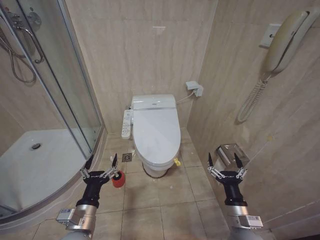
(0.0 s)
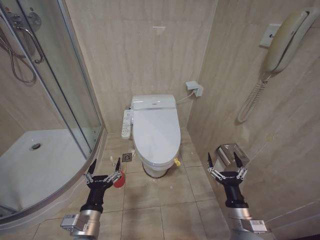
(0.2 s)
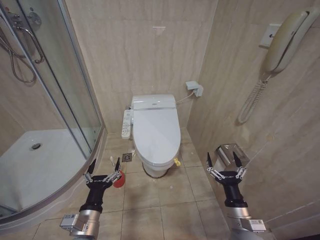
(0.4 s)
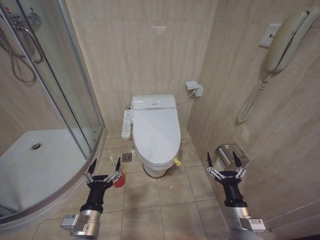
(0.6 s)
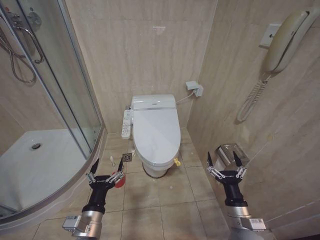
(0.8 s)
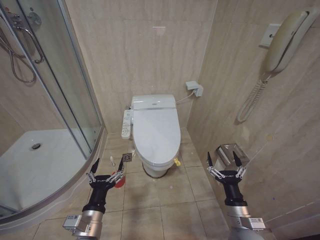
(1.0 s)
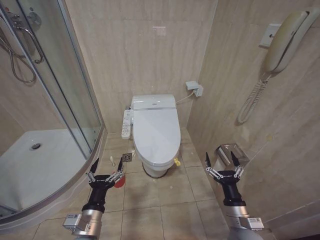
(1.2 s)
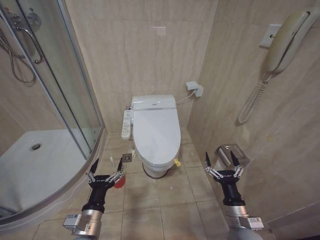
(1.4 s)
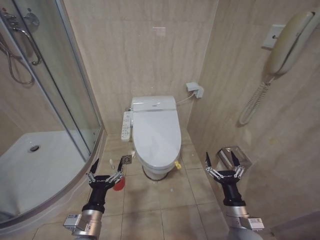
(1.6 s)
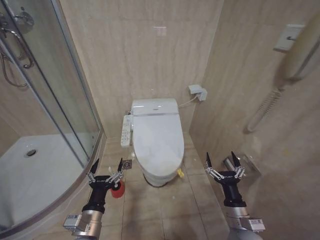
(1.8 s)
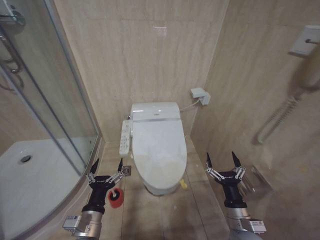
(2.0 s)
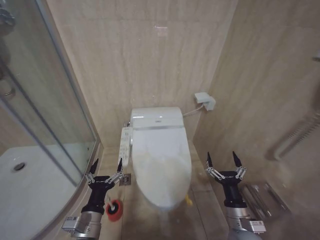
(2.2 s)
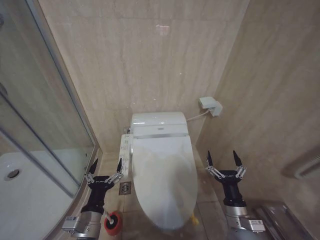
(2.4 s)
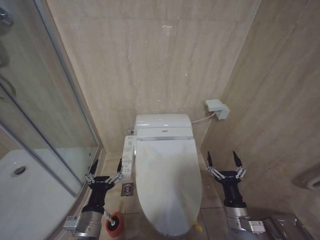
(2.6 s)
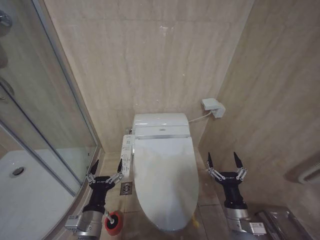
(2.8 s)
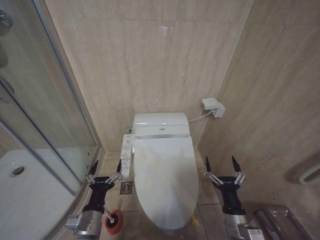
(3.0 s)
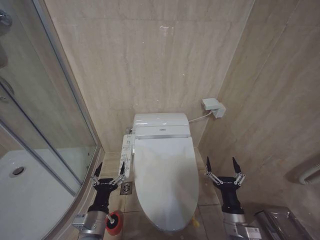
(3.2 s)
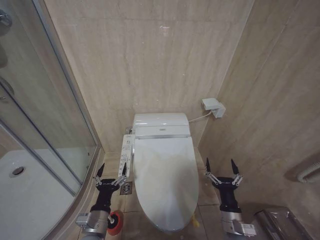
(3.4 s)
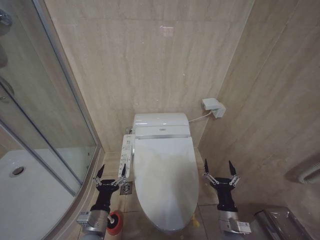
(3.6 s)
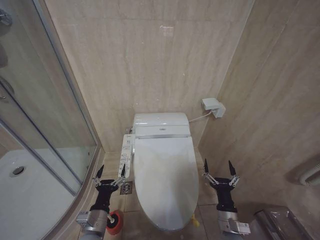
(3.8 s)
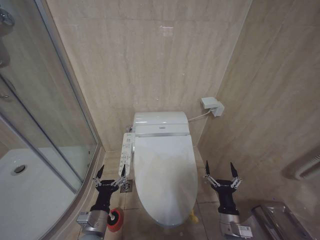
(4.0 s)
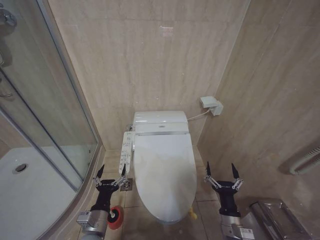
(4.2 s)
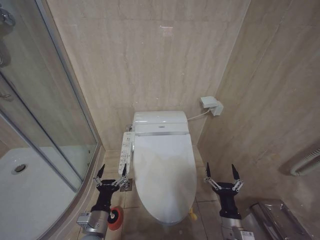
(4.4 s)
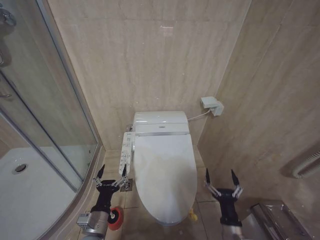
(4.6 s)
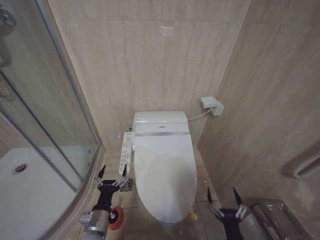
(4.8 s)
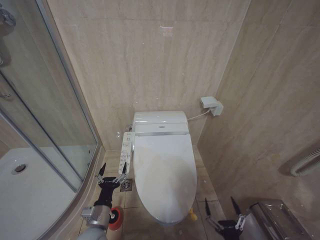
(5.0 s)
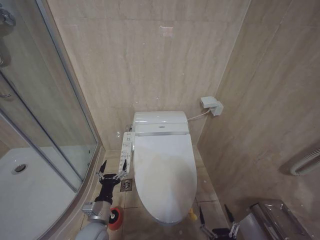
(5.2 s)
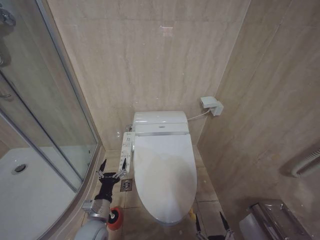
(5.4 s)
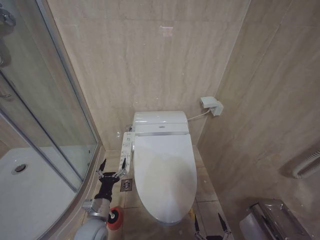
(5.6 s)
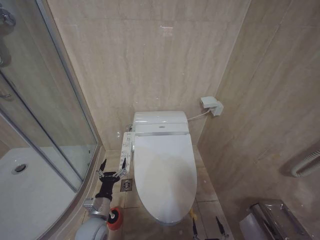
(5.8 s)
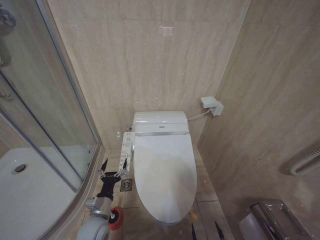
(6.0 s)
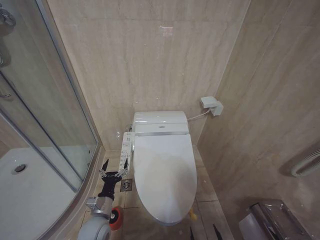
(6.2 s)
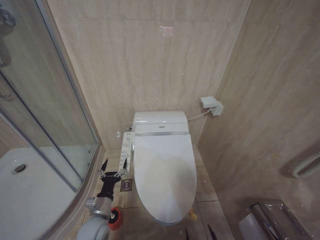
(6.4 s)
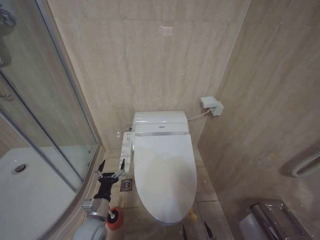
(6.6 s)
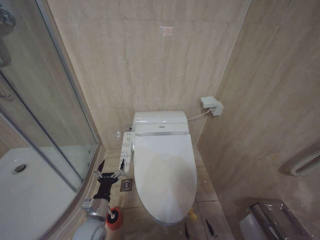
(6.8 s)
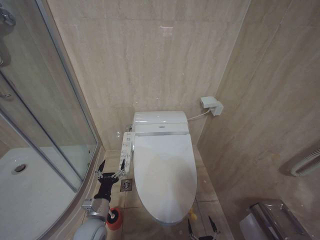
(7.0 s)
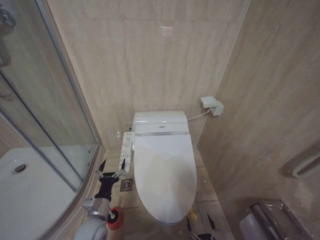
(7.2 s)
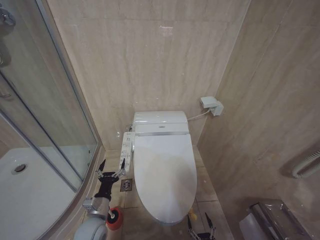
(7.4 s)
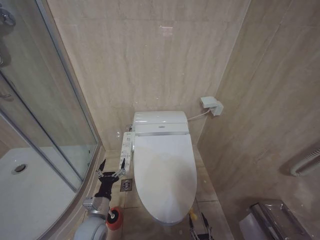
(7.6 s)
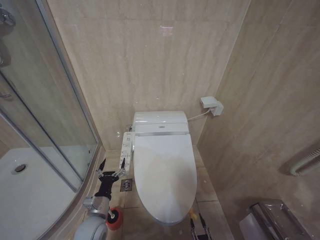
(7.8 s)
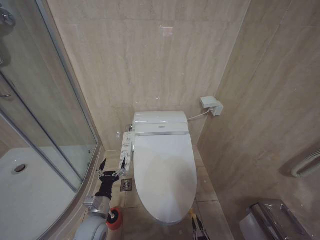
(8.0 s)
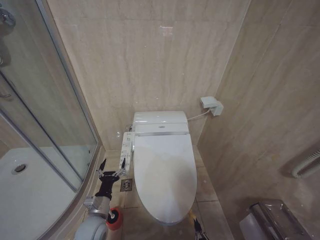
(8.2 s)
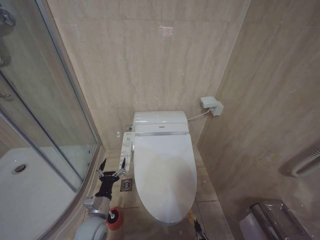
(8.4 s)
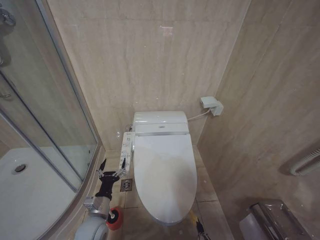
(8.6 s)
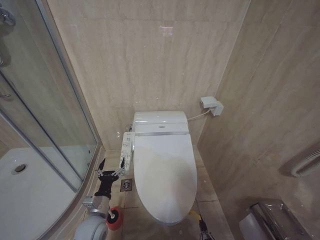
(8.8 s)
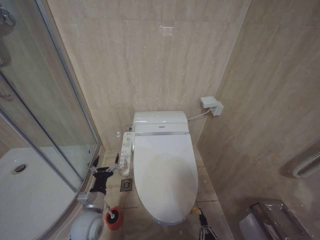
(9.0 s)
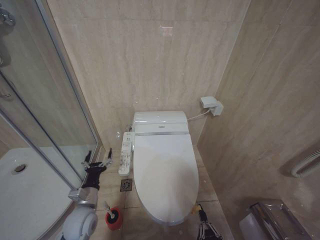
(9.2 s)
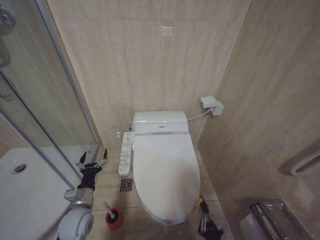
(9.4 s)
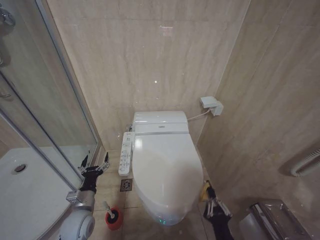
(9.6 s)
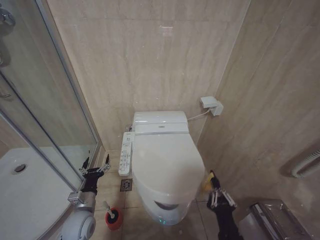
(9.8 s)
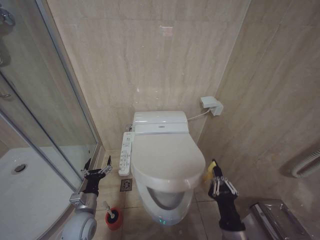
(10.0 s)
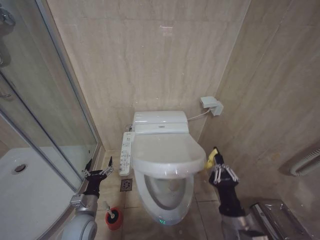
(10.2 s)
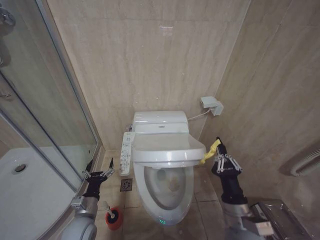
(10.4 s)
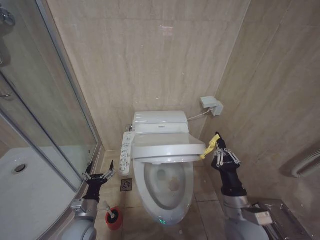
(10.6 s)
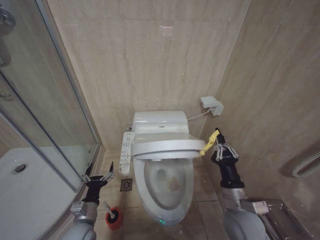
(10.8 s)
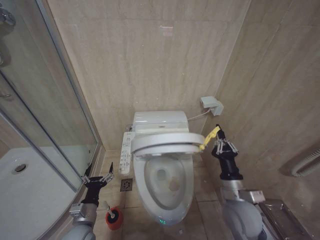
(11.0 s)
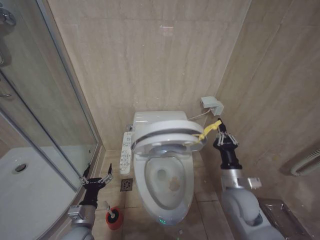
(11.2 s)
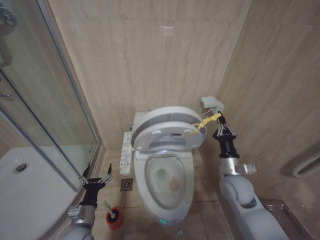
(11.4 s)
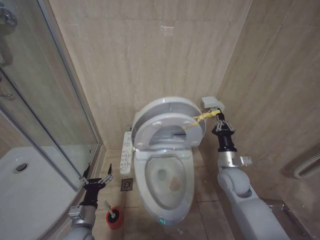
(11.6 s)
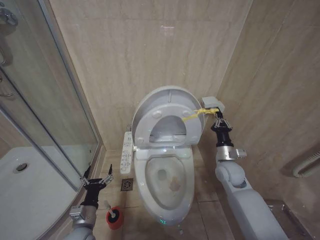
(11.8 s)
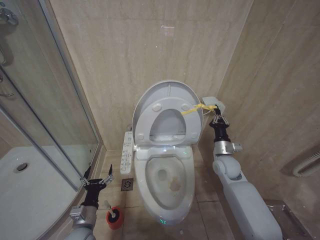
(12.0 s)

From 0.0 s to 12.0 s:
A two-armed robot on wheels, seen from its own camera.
Task of the whole recording: Open the toilet lid, clean the toilet bowl with a toilet brush, close the toilet lid, and flush.
From 3.0 s to 4.4 s: The grippers move only a little.
From 4.4 s to 6.0 s: The left gripper goes roughly 5 cm forward, while the right gripper is displaced backward and downward by some 20 cm.
From 6.0 s to 7.6 s: The right gripper moves approximately 5 cm.
From 7.6 s to 9.0 s: The right gripper heads upward, covering about 5 cm, and closes.
From 9.0 s to 10.4 s: The right gripper heads upward and forward, covering about 25 cm.
From 10.4 s to 12.0 s: The right gripper goes approximately 25 cm forward.

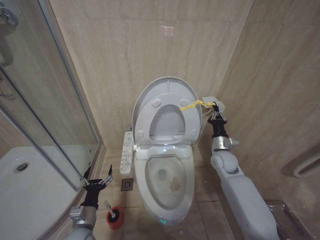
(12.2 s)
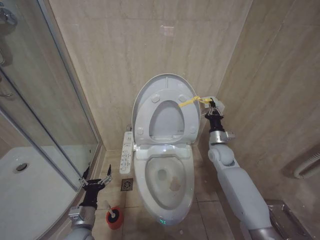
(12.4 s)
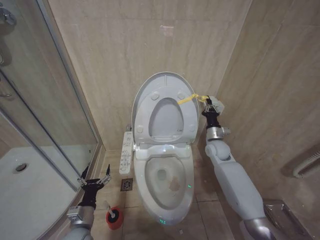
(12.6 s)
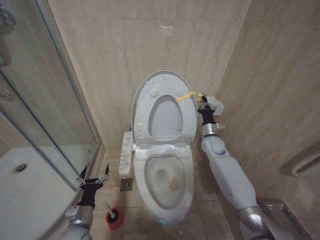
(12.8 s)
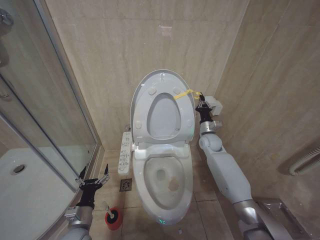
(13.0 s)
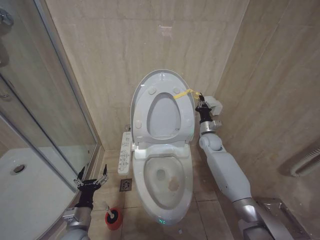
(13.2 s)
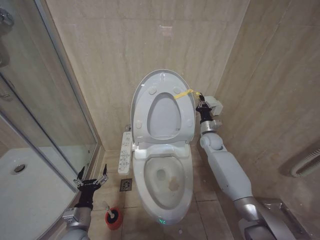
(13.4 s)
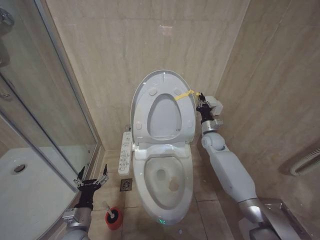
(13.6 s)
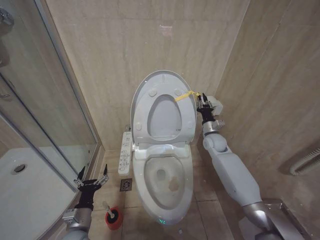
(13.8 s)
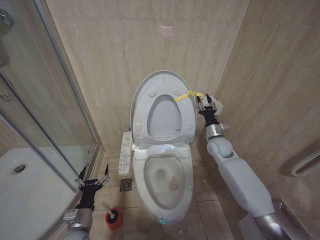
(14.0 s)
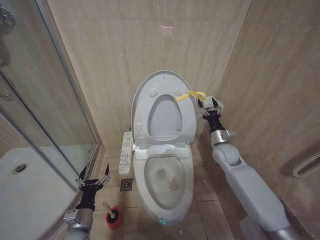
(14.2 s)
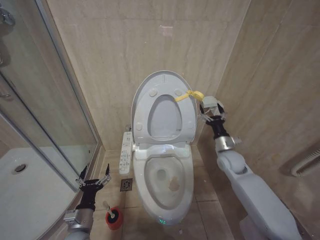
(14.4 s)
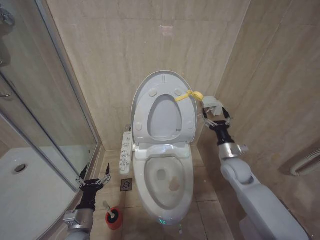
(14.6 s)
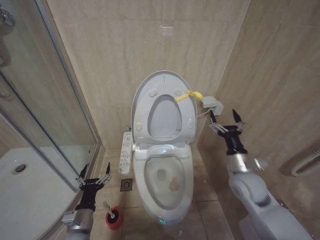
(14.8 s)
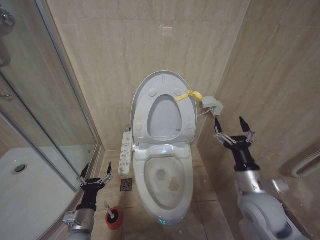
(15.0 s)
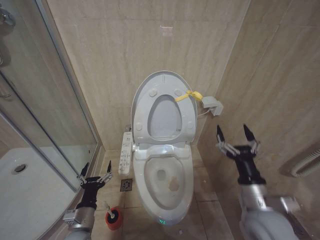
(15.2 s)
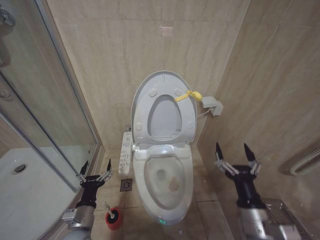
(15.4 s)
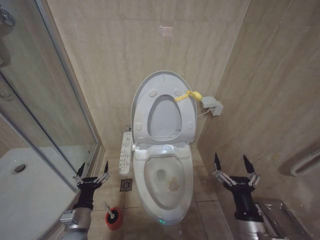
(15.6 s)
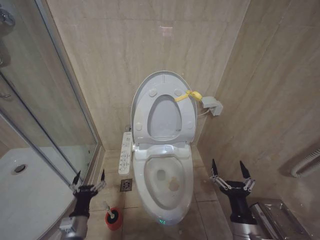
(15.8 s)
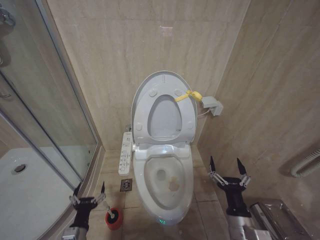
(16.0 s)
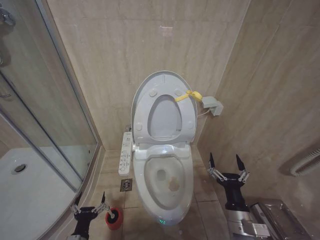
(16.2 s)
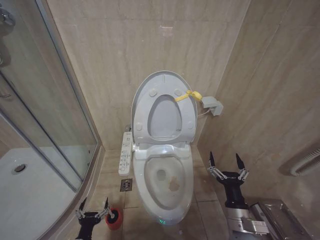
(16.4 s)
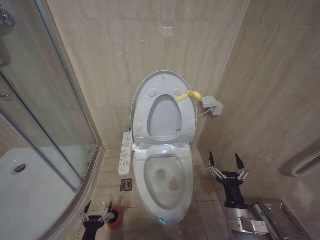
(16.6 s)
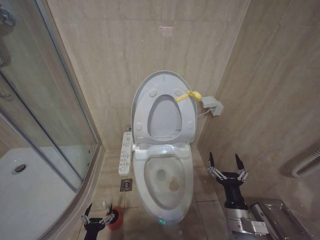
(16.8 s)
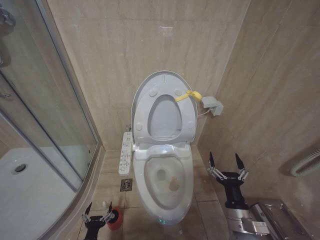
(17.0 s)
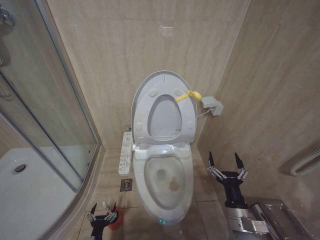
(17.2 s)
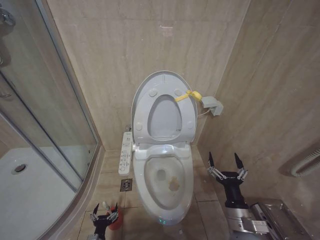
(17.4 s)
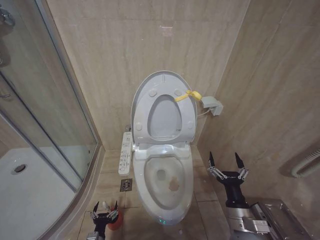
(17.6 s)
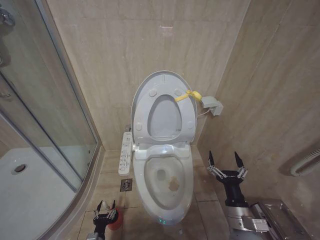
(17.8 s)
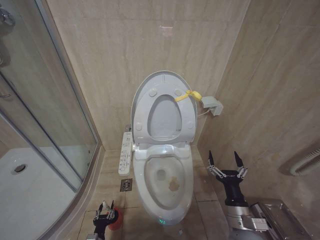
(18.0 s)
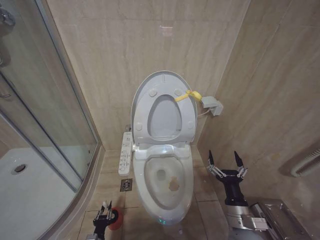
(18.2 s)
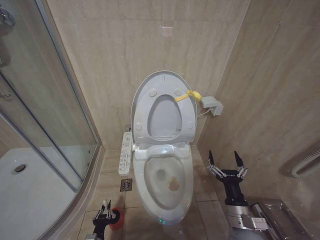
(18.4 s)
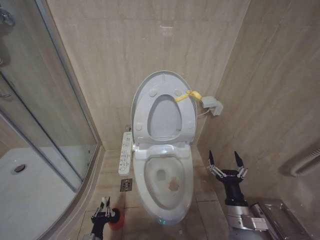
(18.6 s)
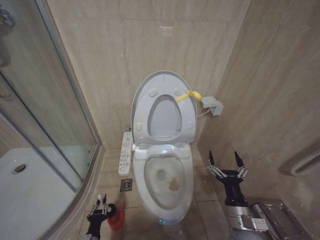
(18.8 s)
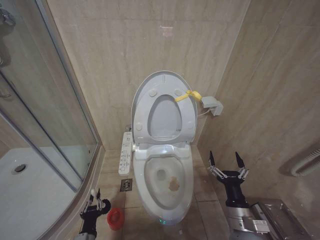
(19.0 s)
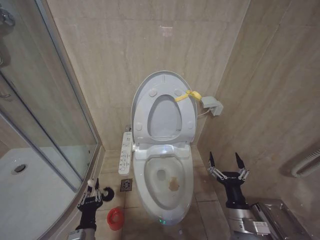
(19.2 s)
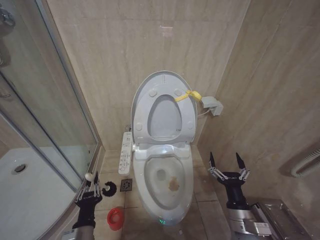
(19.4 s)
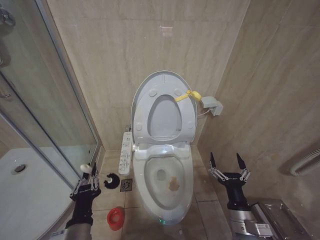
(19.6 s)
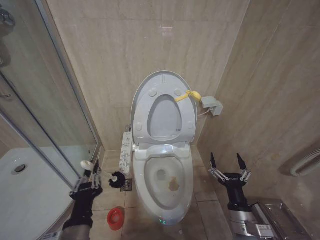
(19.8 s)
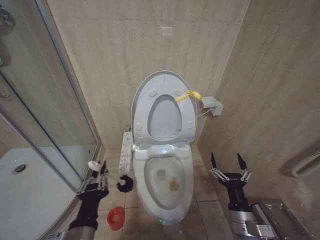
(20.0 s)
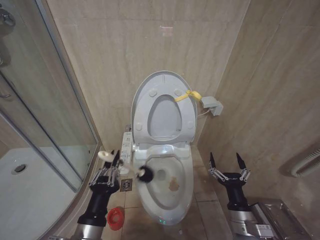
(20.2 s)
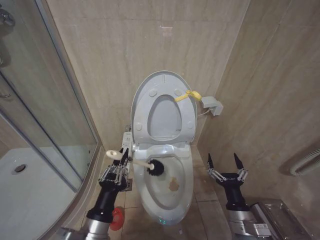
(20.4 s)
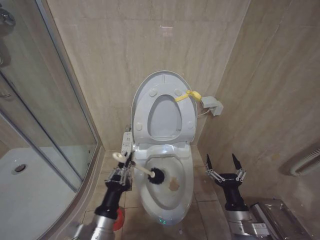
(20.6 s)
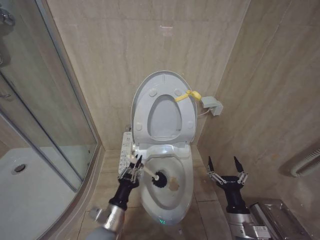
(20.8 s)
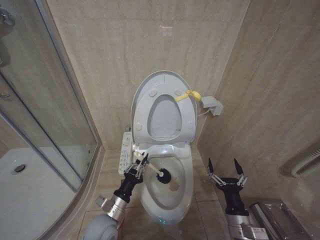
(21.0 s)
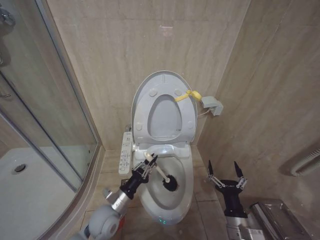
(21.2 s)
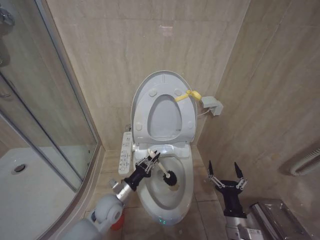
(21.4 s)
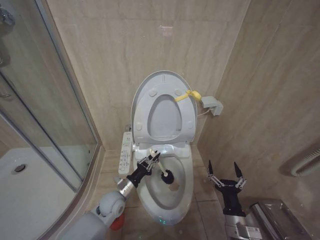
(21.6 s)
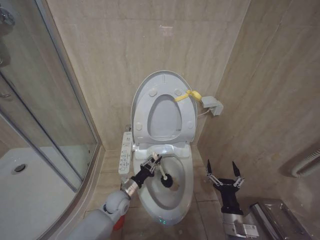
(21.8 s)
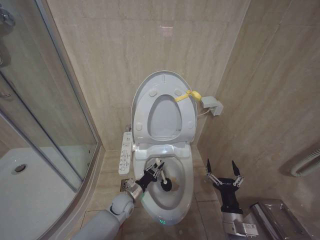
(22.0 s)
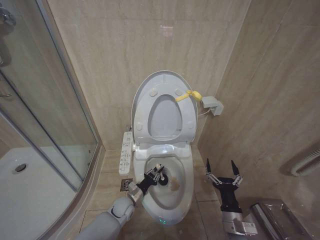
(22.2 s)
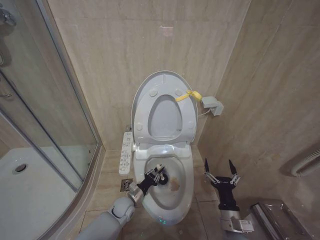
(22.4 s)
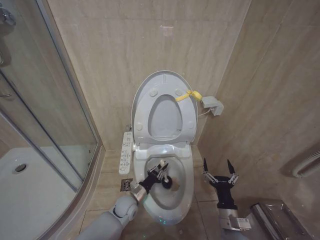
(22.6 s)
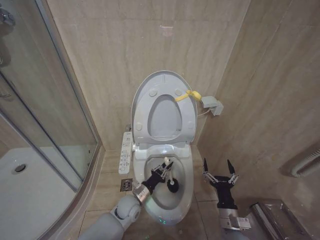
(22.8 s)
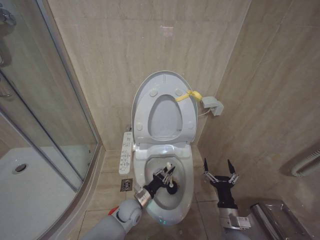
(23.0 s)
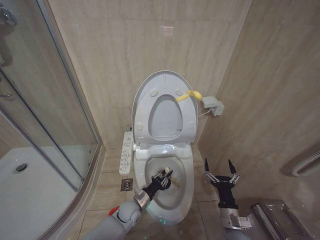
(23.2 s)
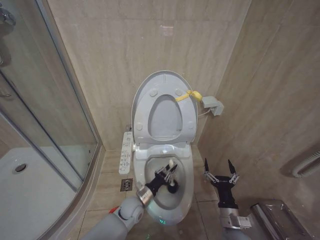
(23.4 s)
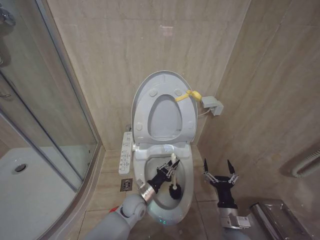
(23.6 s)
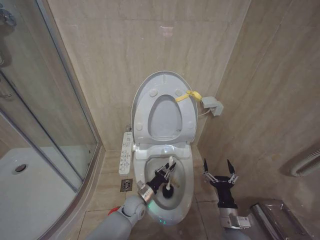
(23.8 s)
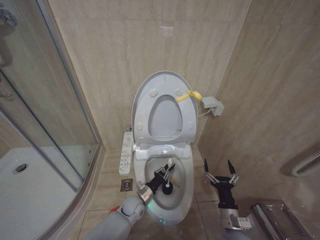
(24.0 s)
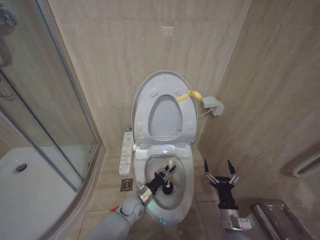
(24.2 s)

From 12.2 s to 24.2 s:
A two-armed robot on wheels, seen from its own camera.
Task of the whole recording: Open the toilet lid, clean the toilet bowl with a toilet brush, close the toilet lid, and flush.
From 12.2 s to 13.8 s: The right gripper is displaced forward by approximately 10 cm.
From 13.8 s to 15.2 s: The right gripper goes approximately 30 cm backward, and opens up.
From 15.2 s to 16.6 s: The right gripper shifts roughly 10 cm downward. The left gripper travels downward and backward by some 15 cm.
From 16.6 s to 18.2 s: The left gripper shifts approximately 10 cm downward, and closes up.
From 18.2 s to 19.8 s: The left gripper moves upward, some 35 cm.
From 19.8 s to 21.2 s: The left gripper is displaced forward and downward by about 20 cm.
From 21.2 s to 22.6 s: The left gripper heads downward and forward, covering roughly 15 cm.
From 22.6 s to 24.2 s: There are only small adjustments of the grippers.
